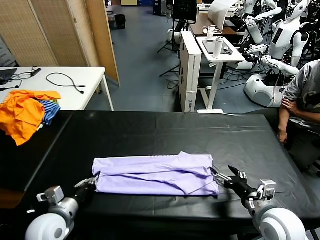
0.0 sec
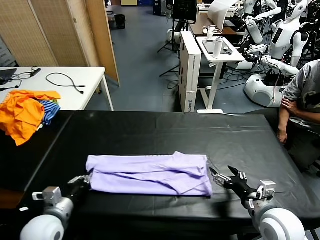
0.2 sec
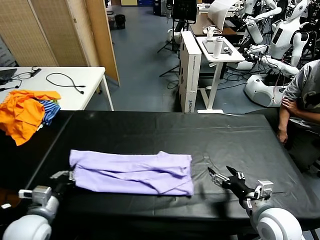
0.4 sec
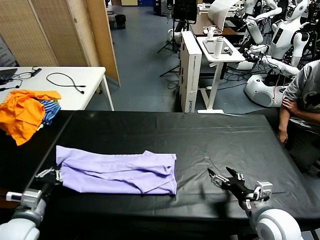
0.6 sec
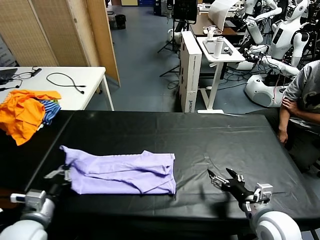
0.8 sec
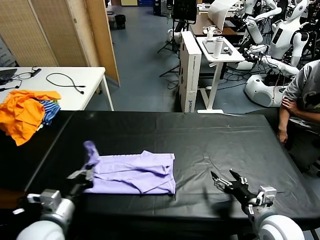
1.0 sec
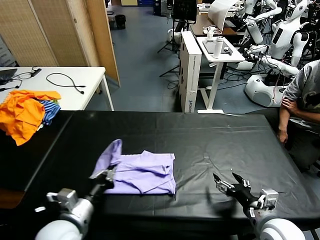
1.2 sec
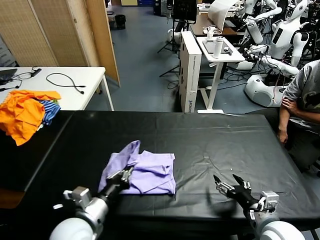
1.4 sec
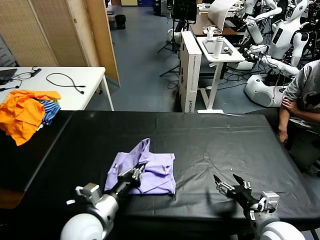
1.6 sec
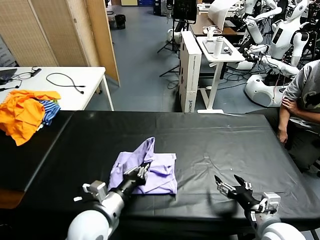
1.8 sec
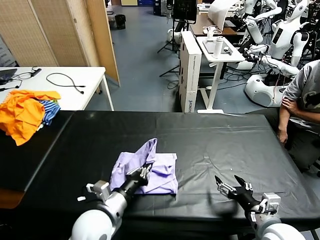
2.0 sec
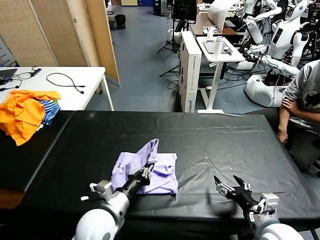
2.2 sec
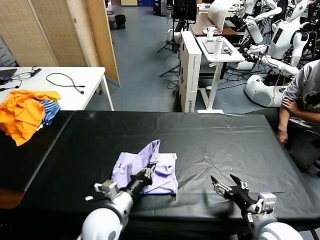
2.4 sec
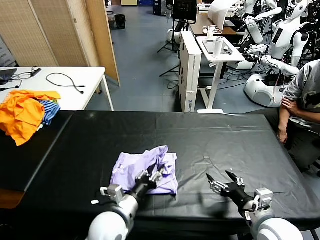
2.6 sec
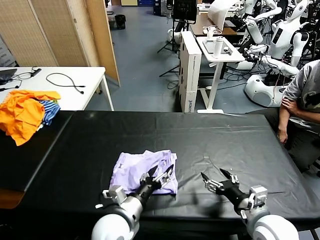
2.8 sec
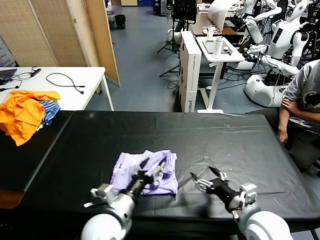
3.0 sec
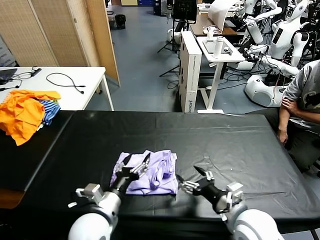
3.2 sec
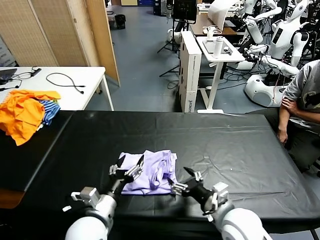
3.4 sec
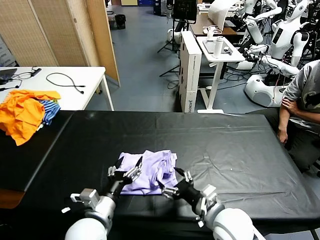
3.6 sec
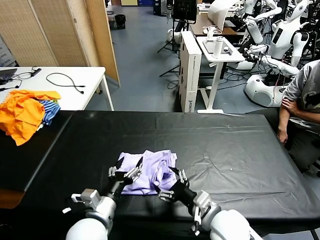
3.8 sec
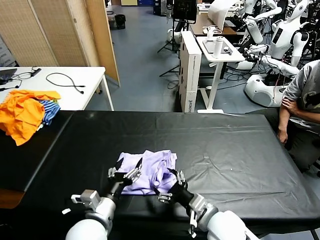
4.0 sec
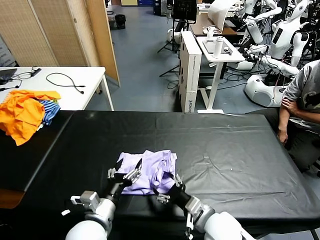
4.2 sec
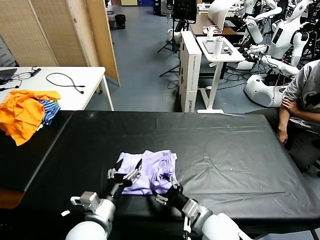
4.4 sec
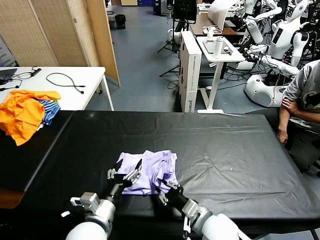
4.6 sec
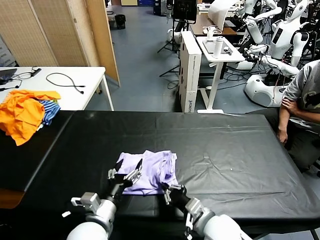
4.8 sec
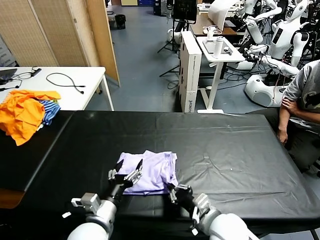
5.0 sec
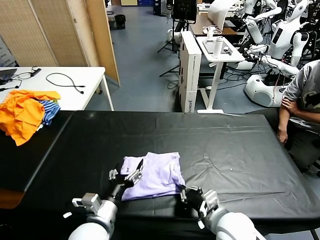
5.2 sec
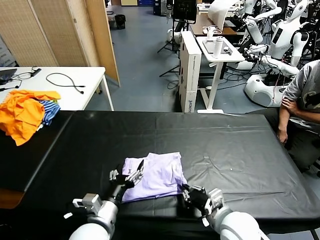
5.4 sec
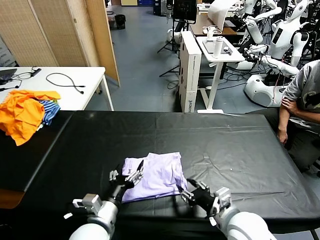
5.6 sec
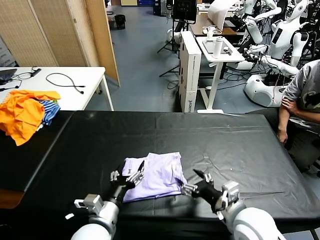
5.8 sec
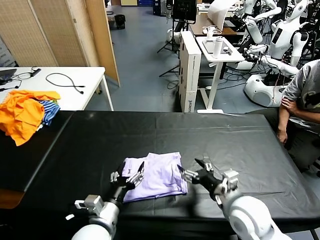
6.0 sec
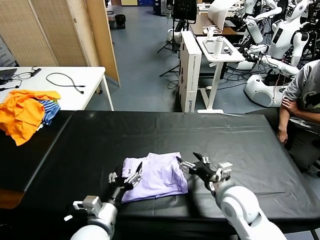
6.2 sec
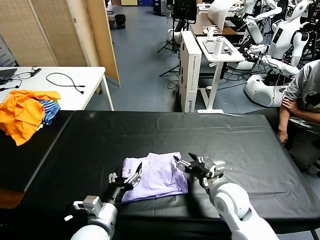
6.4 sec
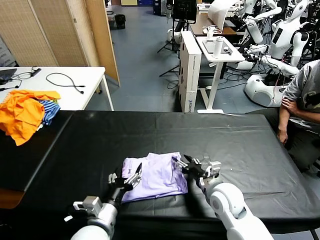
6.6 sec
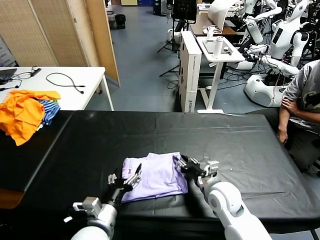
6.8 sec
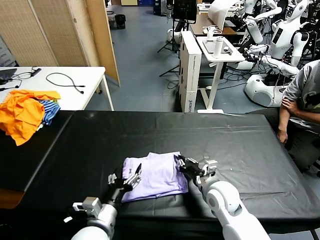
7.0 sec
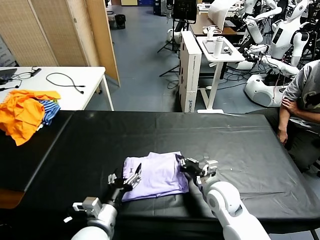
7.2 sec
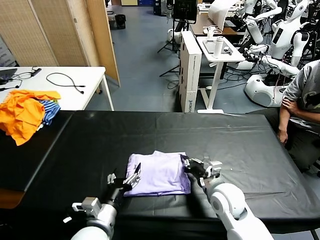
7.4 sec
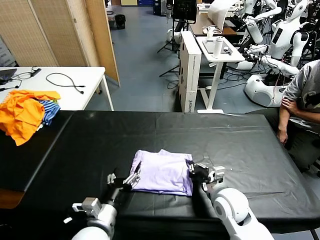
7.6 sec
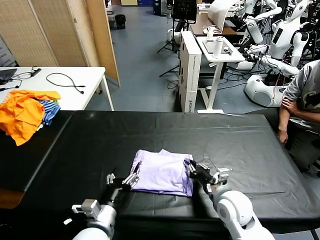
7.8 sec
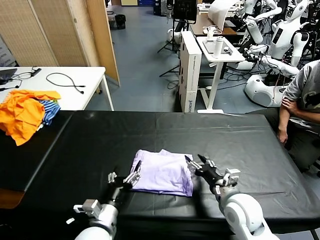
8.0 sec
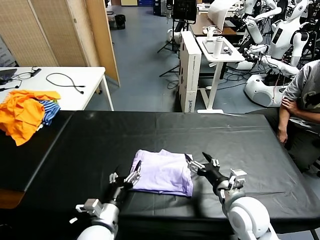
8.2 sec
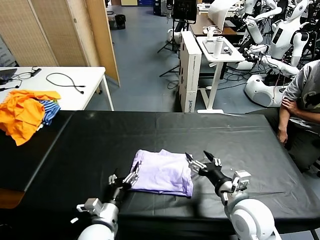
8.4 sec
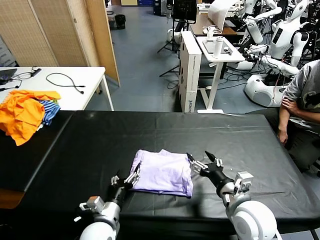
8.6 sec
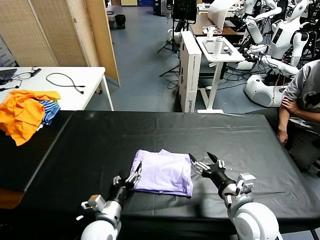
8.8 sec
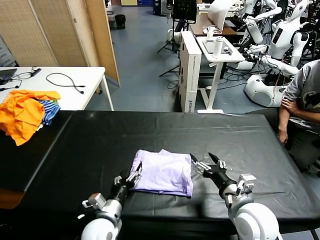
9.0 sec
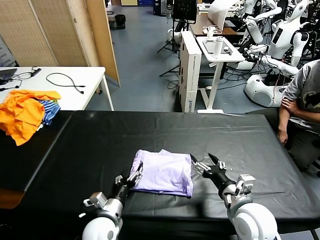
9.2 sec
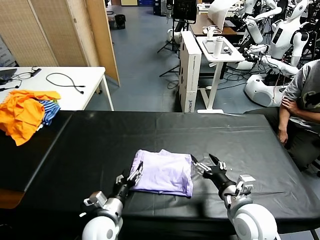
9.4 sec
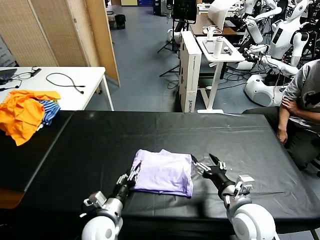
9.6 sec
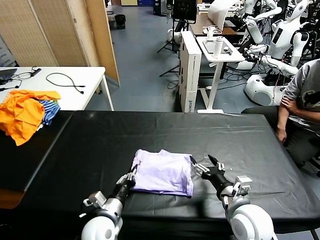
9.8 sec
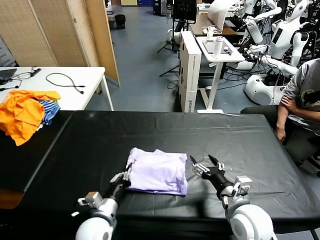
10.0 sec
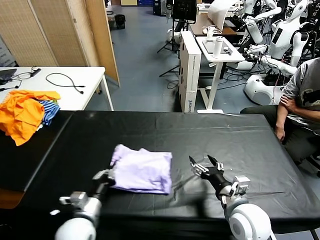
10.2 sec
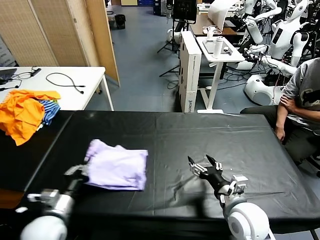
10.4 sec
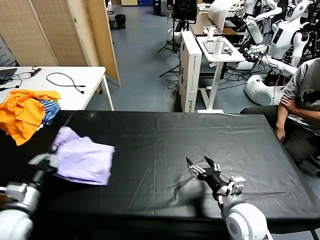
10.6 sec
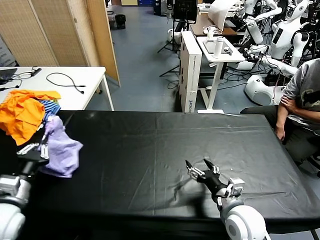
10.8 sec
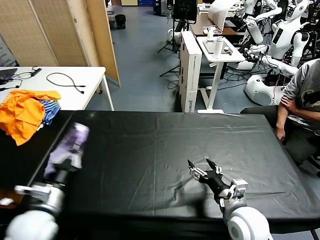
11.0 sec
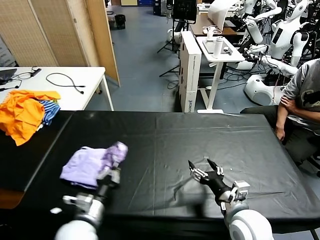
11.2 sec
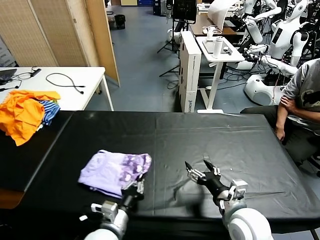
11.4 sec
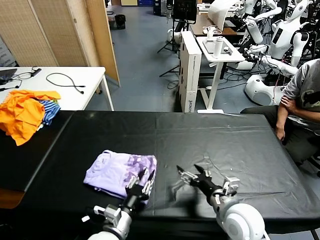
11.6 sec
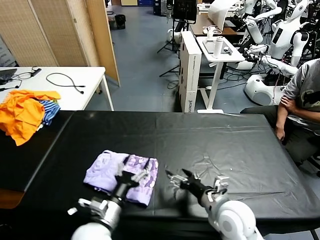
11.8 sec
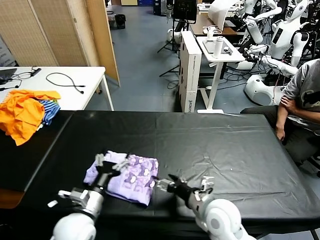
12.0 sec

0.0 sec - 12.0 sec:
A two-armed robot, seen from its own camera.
Task of the whole recording: fold and organize the clothes.
Step, 0.0 sec - 8.0 sec: use the left gripper to drag the left edge of the fabric to the left and folds it over the right edge.
Step, 8.4 sec - 11.8 sec: Flip the folded clothes over with left gripper.
0.0 sec - 1.6 sec: The left gripper moves to the right, approximately 15 cm.
1.6 sec - 3.0 sec: The right gripper changes place by roughly 5 cm. The left gripper opens up.
3.0 sec - 4.4 sec: The right gripper moves to the left and downward, some 10 cm, and closes up.
4.4 sec - 6.0 sec: The right gripper heads to the right and upward, covering approximately 10 cm, and opens its fingers.
6.0 sec - 7.6 sec: The right gripper moves downward, some 5 cm, and closes up.
7.6 sec - 9.0 sec: The right gripper shifts approximately 10 cm backward and upward, and opens its fingers; the left gripper shifts some 5 cm downward.
9.0 sec - 10.4 sec: The left gripper goes roughly 15 cm to the left and upward, and closes.
10.4 sec - 12.0 sec: The left gripper moves left and right over some 25 cm, changing direction 2 times, and opens its fingers. The right gripper goes some 5 cm to the left.

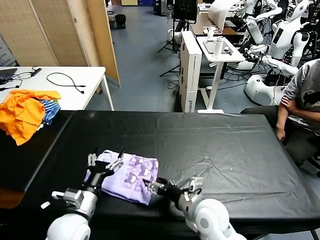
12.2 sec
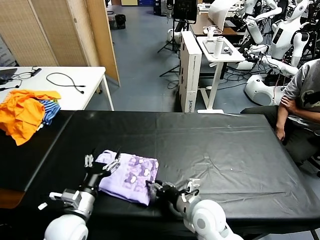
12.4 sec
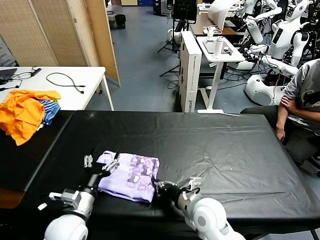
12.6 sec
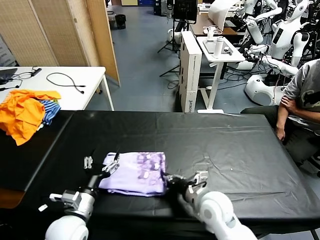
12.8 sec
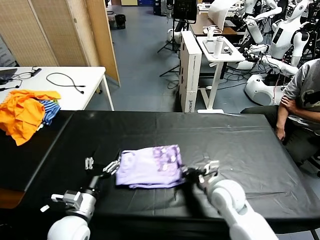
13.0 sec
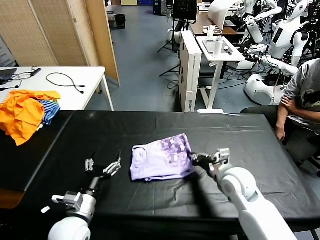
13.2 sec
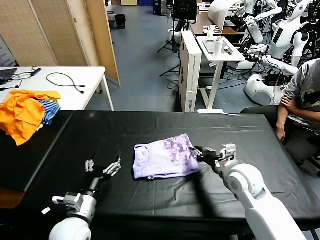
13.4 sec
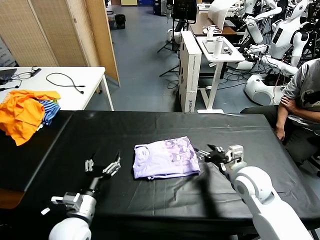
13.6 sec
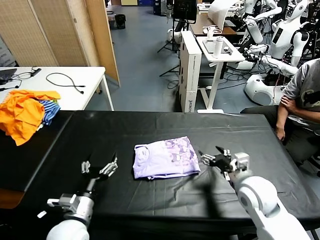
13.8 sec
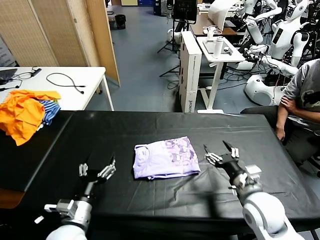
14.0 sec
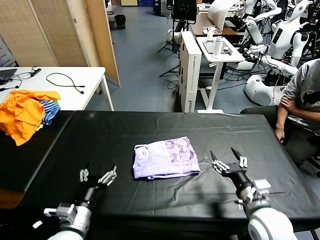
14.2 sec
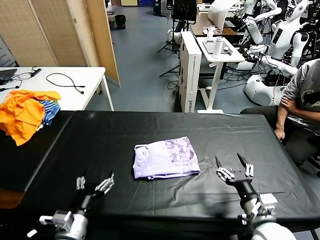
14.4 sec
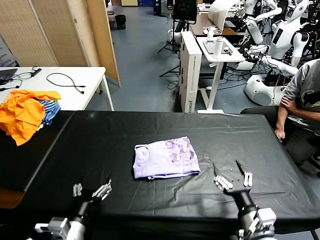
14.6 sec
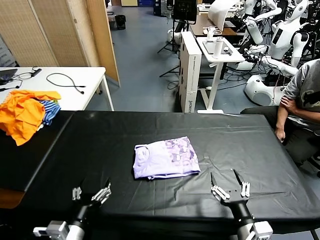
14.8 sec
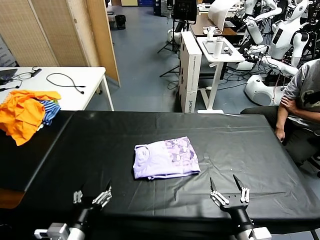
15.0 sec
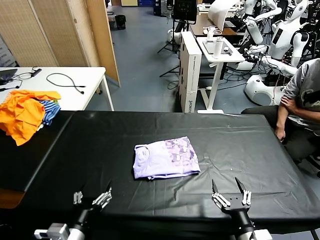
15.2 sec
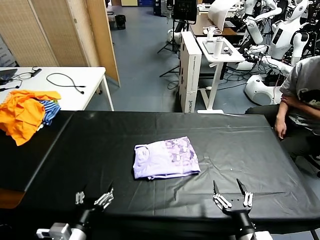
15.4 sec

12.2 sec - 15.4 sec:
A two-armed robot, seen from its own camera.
Task of the whole recording: fold and organize the clothes.
Step, 12.2 sec - 13.6 sec: Drag the clothes to the center of the table.
12.2 sec - 13.8 sec: The right gripper goes some 15 cm to the right and upward, and closes, then reopens.
13.8 sec - 15.4 sec: The left gripper shifts roughly 10 cm backward. Meanwhile the right gripper goes some 20 cm backward.
